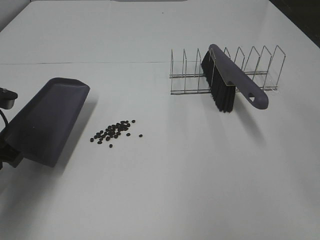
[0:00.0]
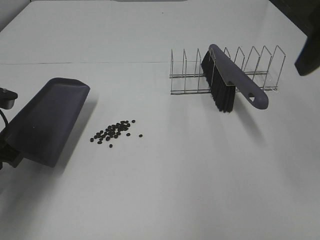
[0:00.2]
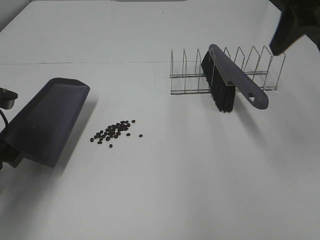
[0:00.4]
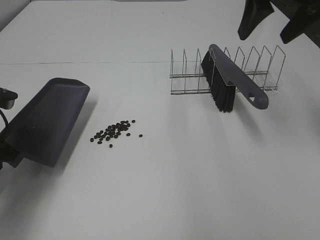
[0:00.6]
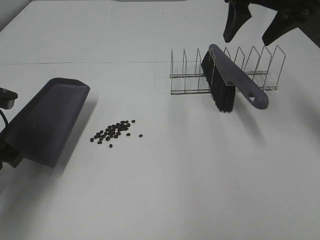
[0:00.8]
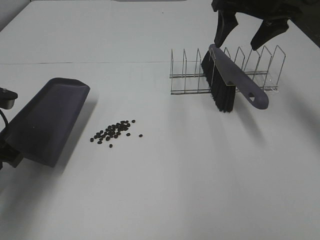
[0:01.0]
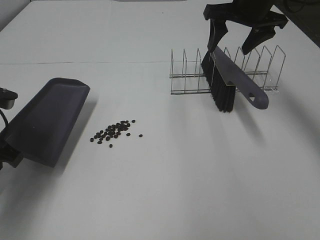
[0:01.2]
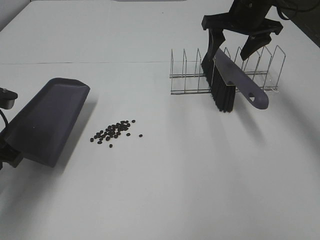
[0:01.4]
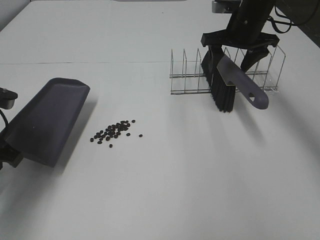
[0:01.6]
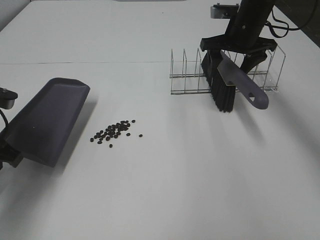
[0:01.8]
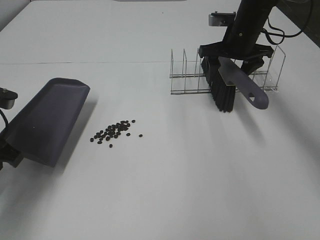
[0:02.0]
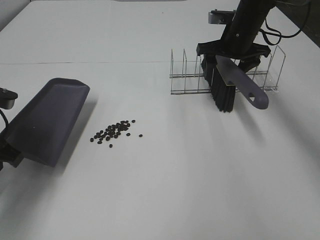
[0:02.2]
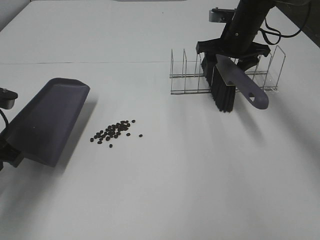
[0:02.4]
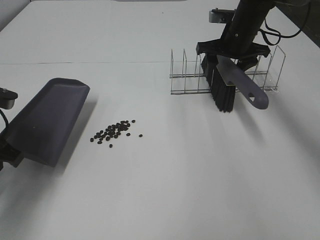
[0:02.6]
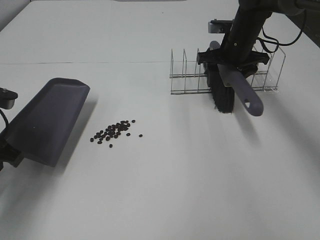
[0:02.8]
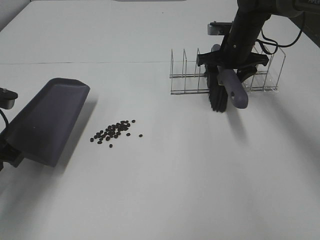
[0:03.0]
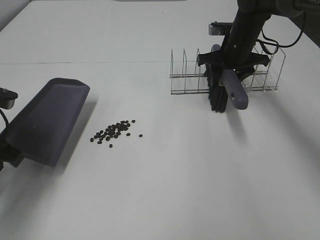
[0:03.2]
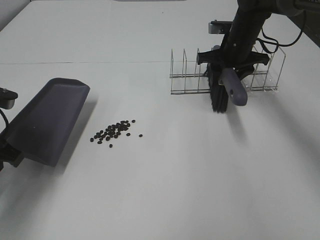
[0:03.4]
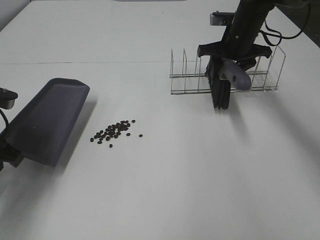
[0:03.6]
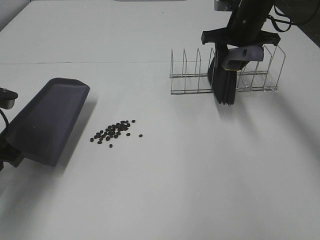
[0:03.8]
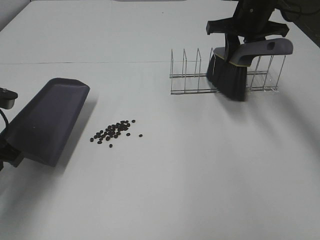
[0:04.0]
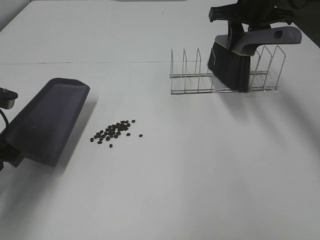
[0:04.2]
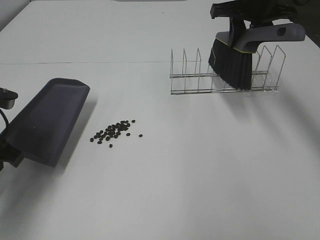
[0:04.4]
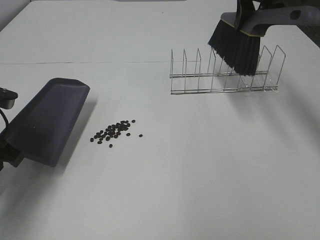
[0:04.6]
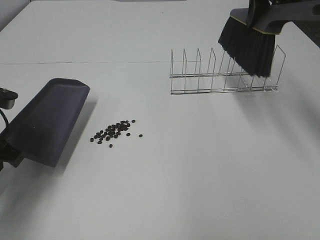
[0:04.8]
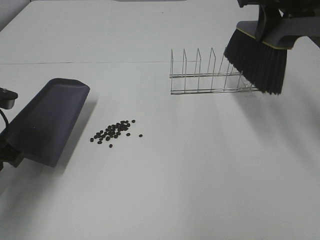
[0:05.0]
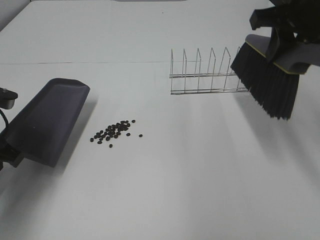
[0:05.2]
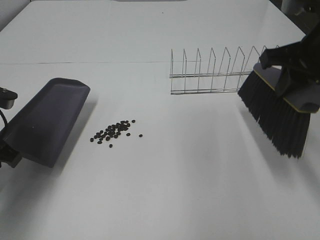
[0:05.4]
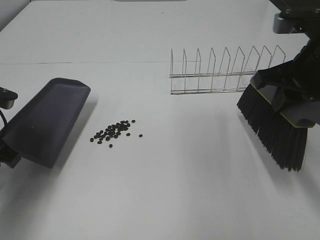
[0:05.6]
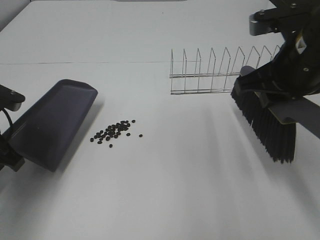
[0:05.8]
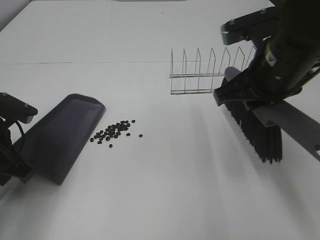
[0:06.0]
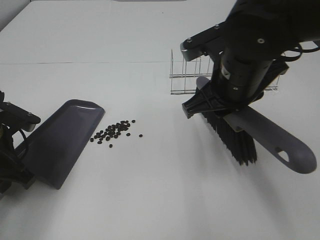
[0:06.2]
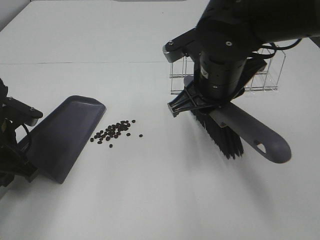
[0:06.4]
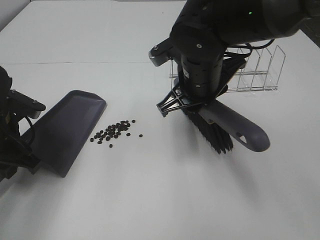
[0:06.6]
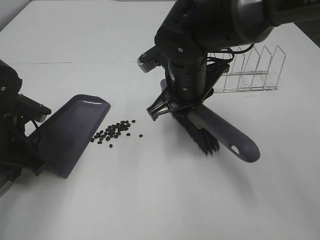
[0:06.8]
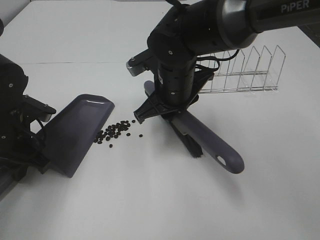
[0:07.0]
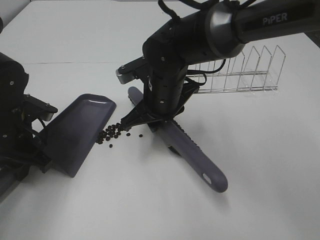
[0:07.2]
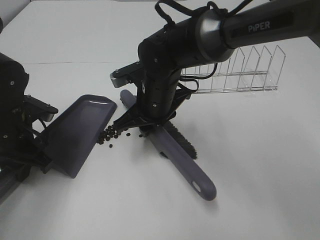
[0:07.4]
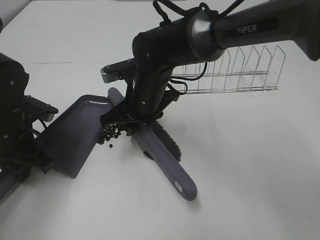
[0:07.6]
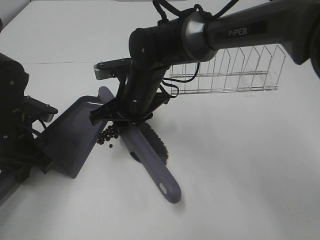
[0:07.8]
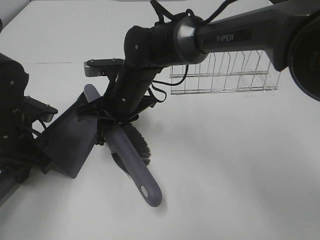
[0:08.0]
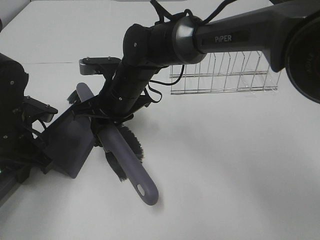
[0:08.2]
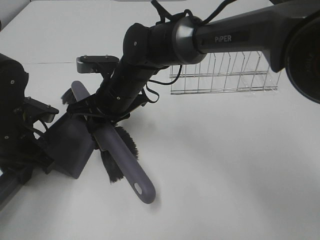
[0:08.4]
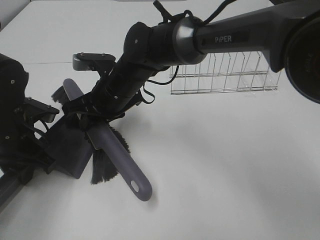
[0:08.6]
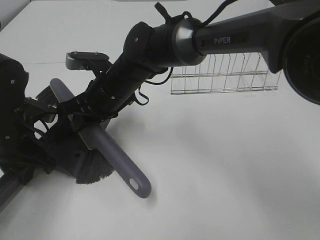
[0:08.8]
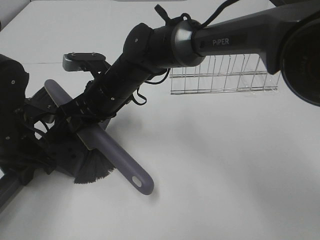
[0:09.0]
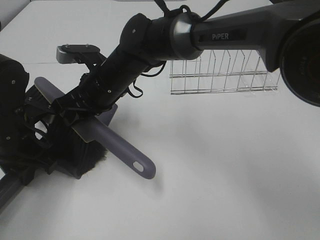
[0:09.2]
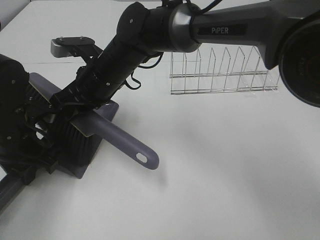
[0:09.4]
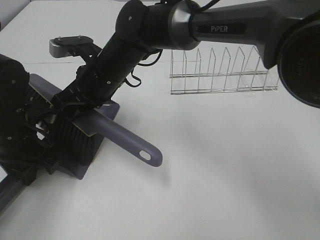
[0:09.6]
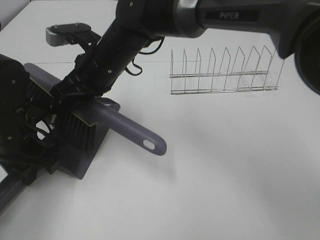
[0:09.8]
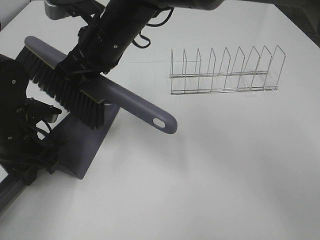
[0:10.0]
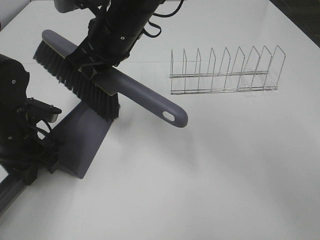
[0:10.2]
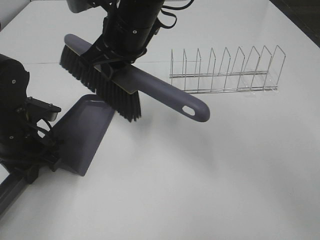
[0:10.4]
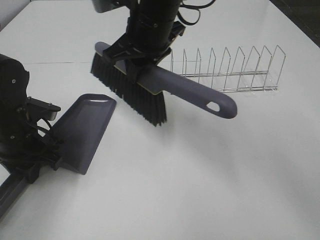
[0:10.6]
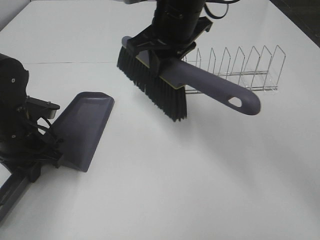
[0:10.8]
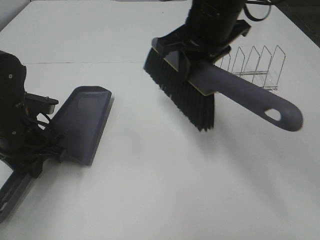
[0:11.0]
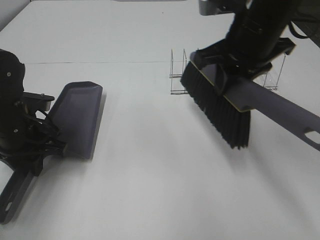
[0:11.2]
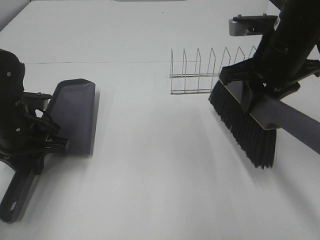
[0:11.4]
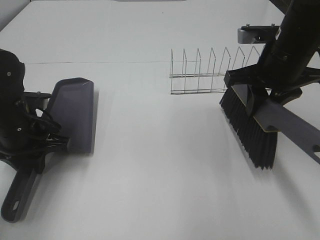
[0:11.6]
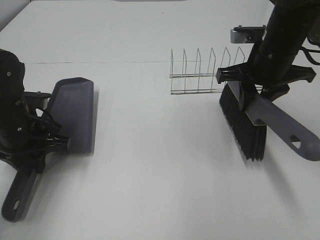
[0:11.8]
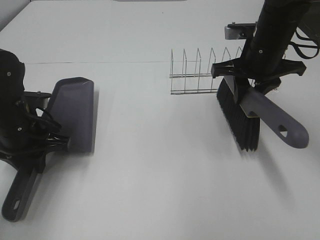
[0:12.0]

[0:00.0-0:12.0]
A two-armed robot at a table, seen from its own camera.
Task of the whole recording: Sweep Coffee Bean.
Step, 0:00.0 to 0:03.4: Right hand:grab the broom.
Step, 0:03.6 to 0:09.8: Right hand:sweep the coffee beans into the dustpan.
0:00.0 to 0:01.6: The right gripper heads forward and downward, covering about 30 cm.
0:01.6 to 0:03.0: The right gripper is displaced downward by about 5 cm.
0:03.0 to 0:04.4: The right gripper heads upward, covering approximately 10 cm, and closes its fingers.
0:04.4 to 0:06.0: The right gripper heads backward, covering approximately 20 cm.
0:06.0 to 0:07.6: The right gripper shifts approximately 20 cm to the left, downward and forward.
0:07.6 to 0:09.0: The right gripper goes about 5 cm to the left.
0:09.0 to 0:10.4: The right gripper is displaced upward by some 15 cm.
0:10.4 to 0:12.0: The right gripper is displaced to the right by about 20 cm.

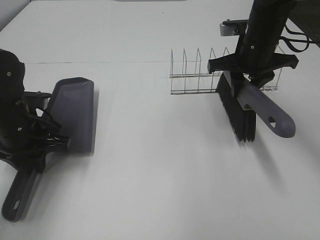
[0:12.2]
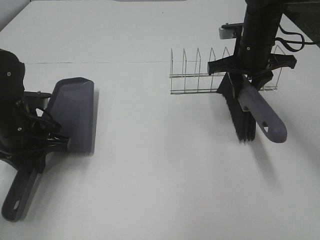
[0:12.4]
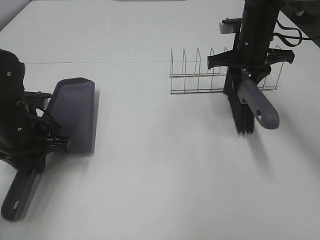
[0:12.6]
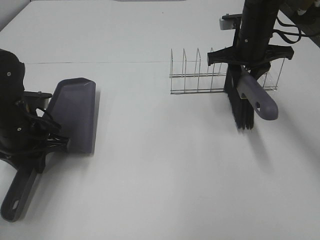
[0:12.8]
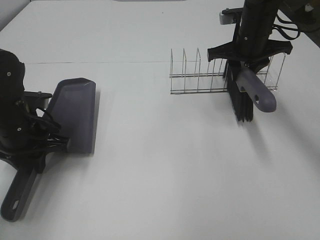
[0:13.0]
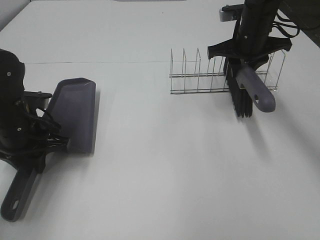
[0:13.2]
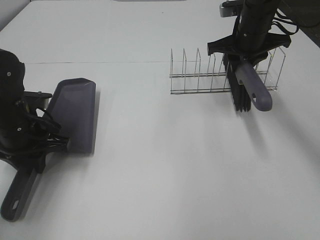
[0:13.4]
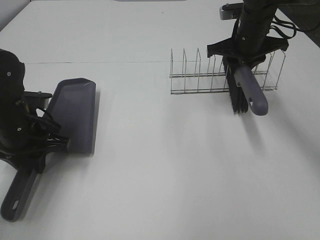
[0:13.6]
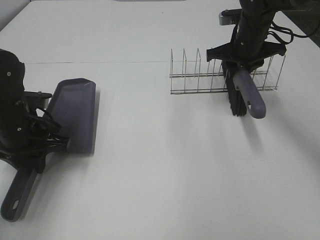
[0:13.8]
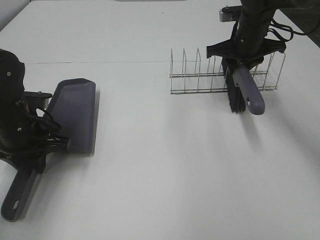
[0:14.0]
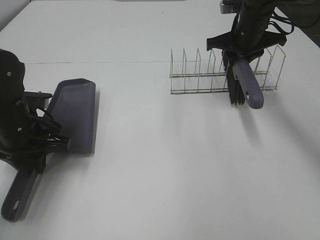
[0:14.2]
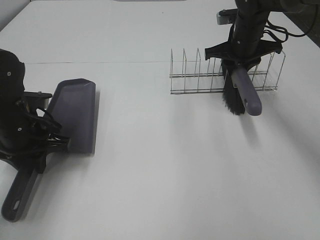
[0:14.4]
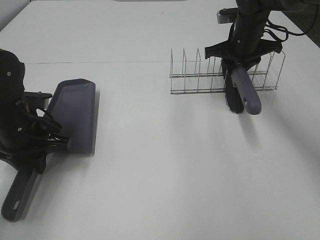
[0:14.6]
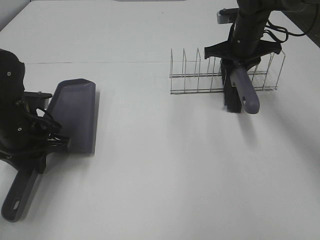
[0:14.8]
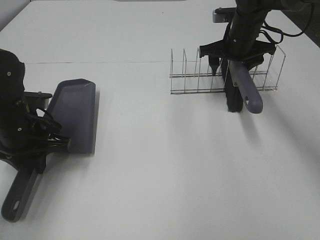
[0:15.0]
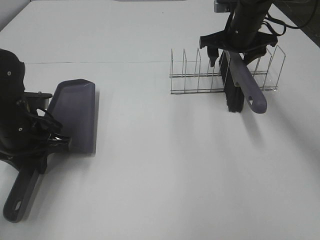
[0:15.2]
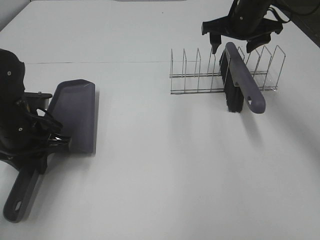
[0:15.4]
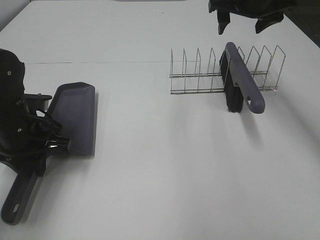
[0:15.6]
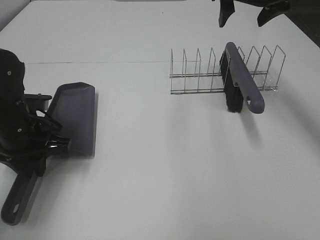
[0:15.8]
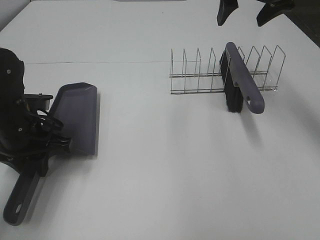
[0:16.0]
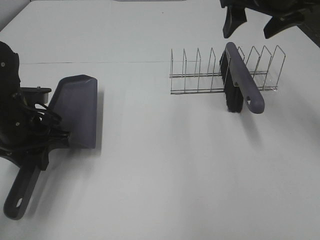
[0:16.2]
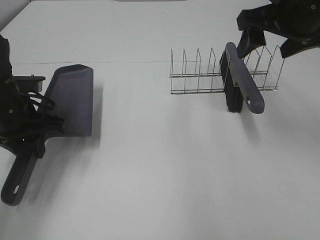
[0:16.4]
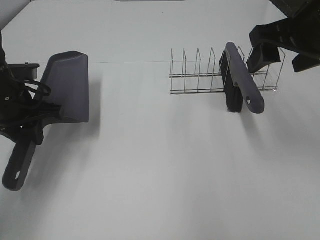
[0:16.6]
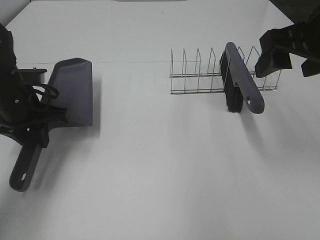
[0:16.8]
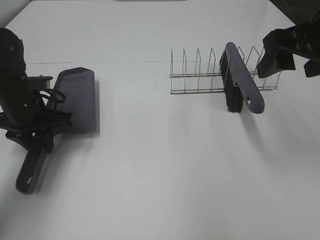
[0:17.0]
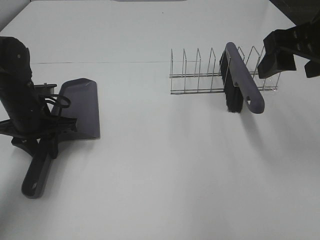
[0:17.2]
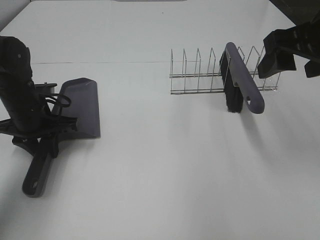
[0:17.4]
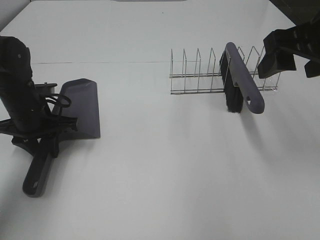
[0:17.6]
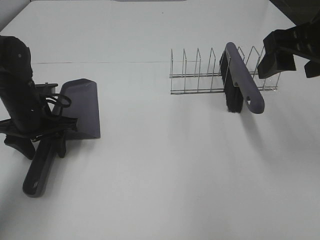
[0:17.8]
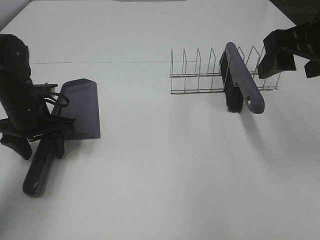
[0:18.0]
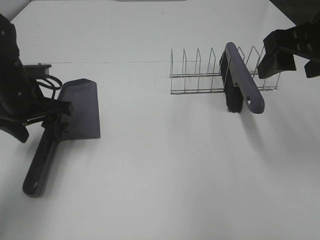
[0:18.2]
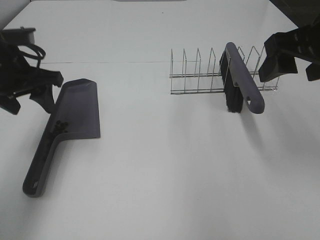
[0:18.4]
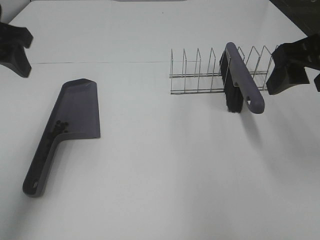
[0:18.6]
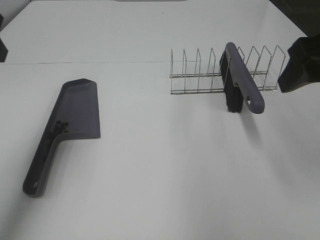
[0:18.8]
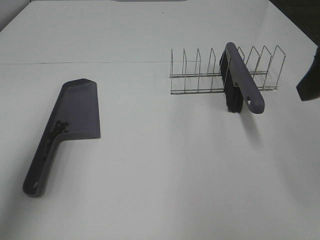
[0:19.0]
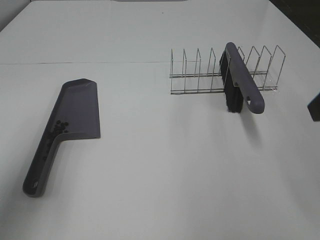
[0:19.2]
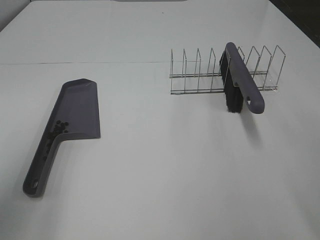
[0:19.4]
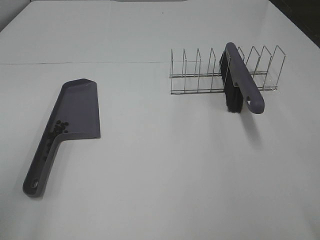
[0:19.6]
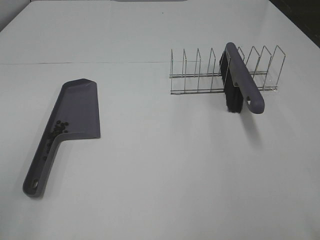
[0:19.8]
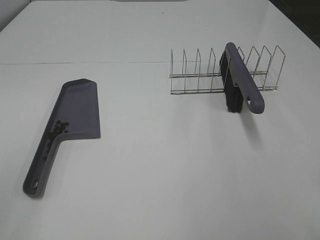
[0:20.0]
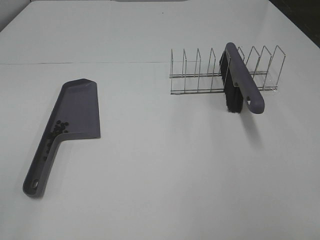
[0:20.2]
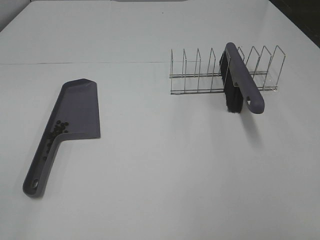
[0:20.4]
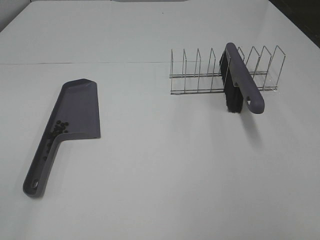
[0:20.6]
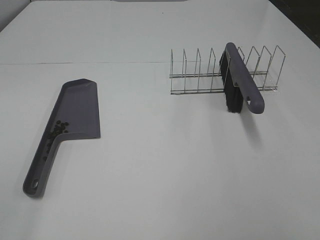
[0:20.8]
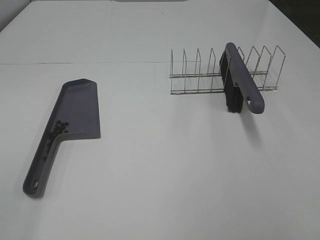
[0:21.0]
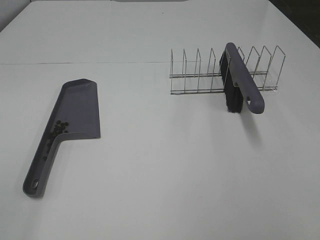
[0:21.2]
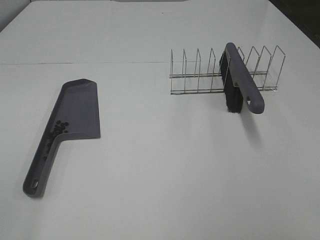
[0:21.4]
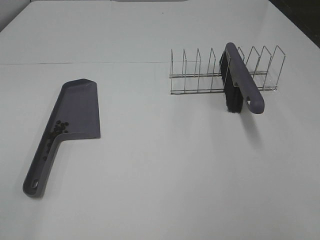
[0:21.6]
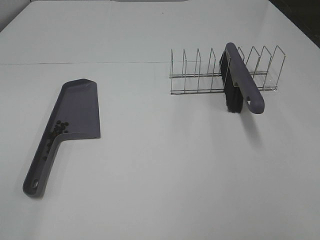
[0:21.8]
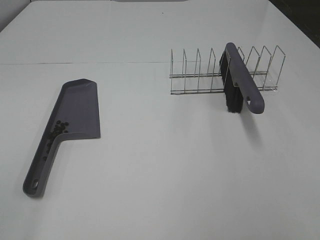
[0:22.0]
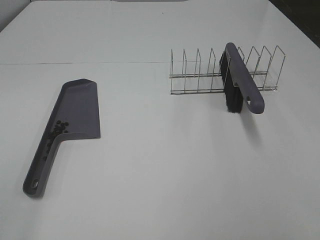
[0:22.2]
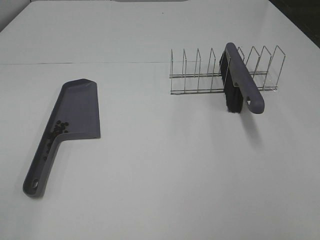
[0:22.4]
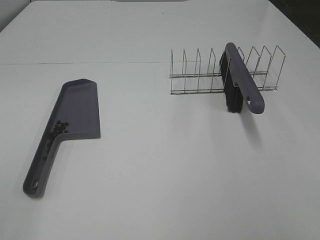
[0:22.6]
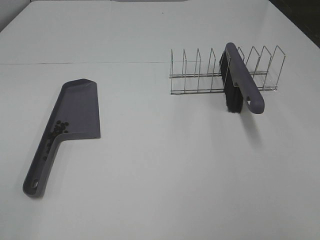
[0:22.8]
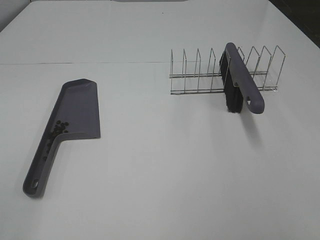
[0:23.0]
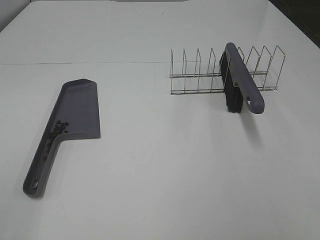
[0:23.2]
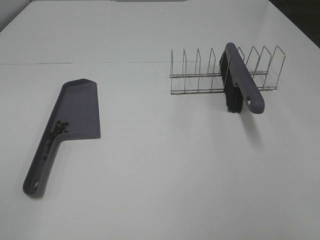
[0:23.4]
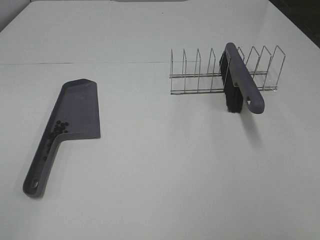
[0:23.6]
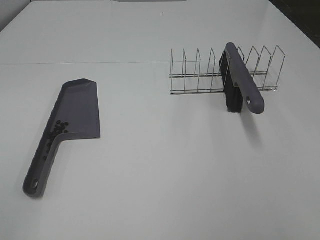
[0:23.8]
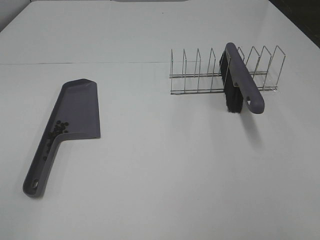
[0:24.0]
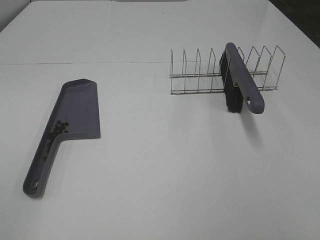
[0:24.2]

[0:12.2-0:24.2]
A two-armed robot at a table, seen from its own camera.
Task of the whole recording: Sweep Coffee Bean.
Step, 0:12.2 to 0:15.2: Right hand:place the broom on the rack.
Step, 0:15.4 to 0:18.0: Left hand:place the dustpan on the table.
0:12.2 to 0:13.8: The right gripper heads forward, covering roughly 5 cm.
0:13.8 to 0:15.2: The right gripper opens.
0:15.2 to 0:16.6: The right gripper moves backward and upward, about 20 cm. Meanwhile the left gripper ends up some 5 cm from where it was.
0:16.6 to 0:18.2: The left gripper opens.
0:18.2 to 0:19.8: The right gripper shifts approximately 20 cm backward. Meanwhile the left gripper shifts roughly 30 cm backward and upward, and opens up.
